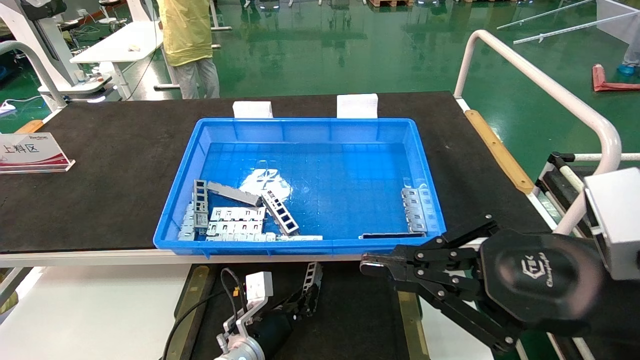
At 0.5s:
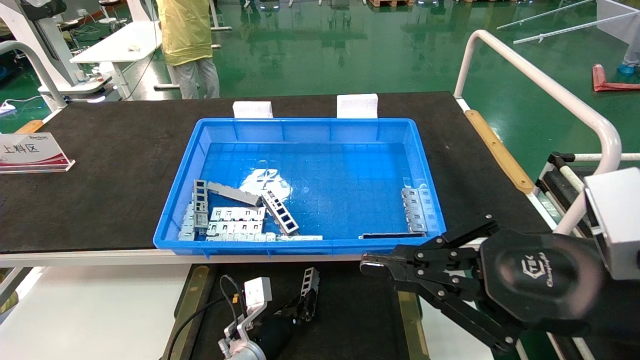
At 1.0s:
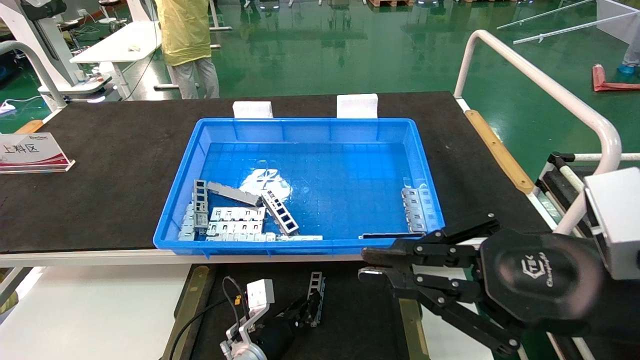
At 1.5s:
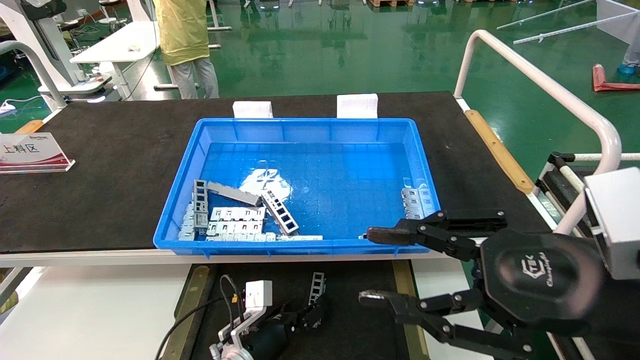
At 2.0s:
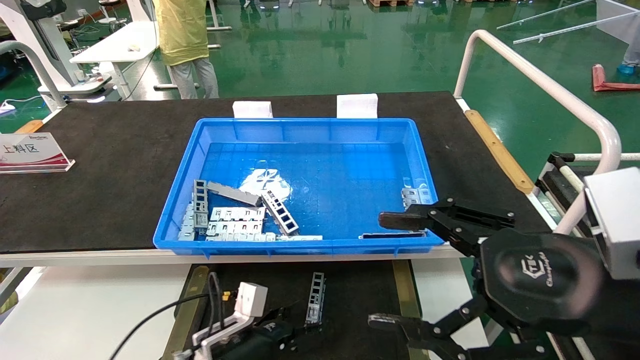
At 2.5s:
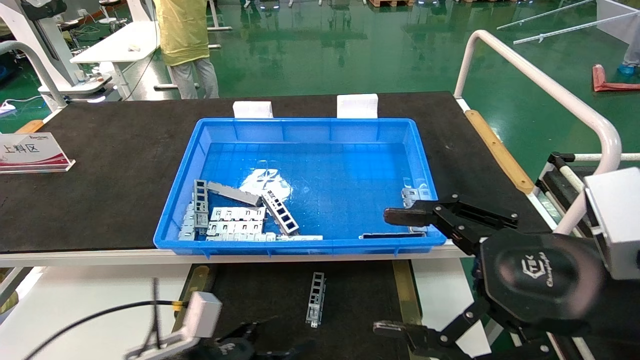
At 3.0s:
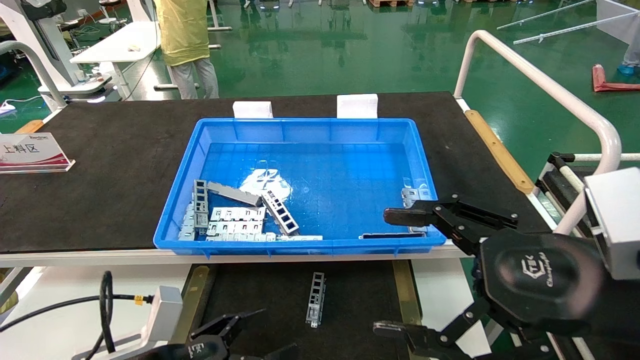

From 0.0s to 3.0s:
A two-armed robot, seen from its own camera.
Task of the whole recording: Grasp the part with one hand and place it on the black container.
From 0.0s to 1.5s: The left gripper opens its fingers. The right gripper opens.
From 1.5s to 3.0s: The left gripper goes roughly 20 cm backward, to the left and upward, and opens, while the right gripper opens.
